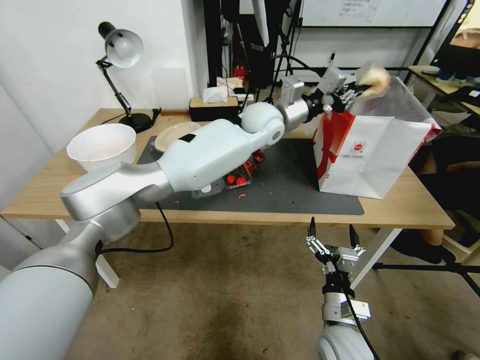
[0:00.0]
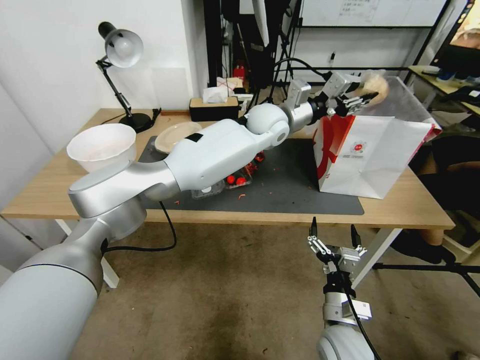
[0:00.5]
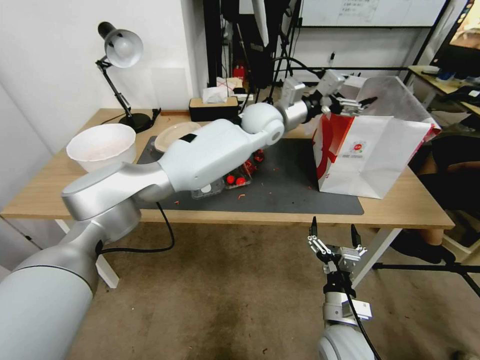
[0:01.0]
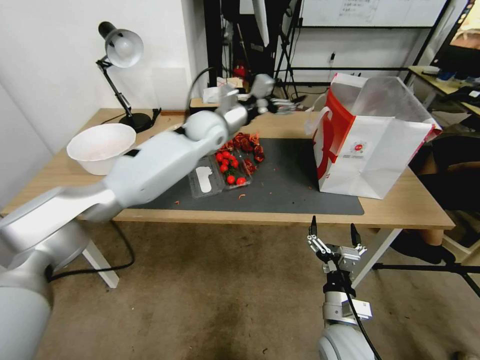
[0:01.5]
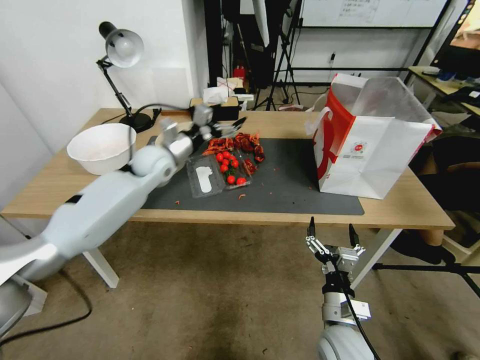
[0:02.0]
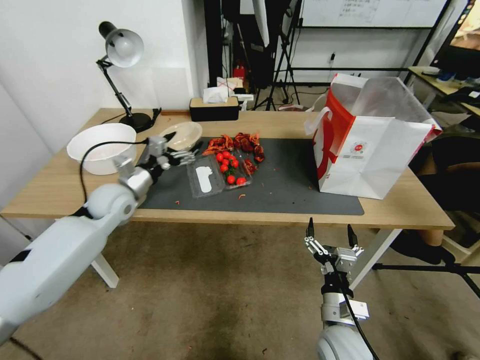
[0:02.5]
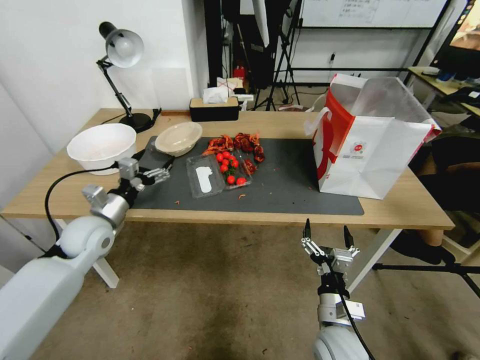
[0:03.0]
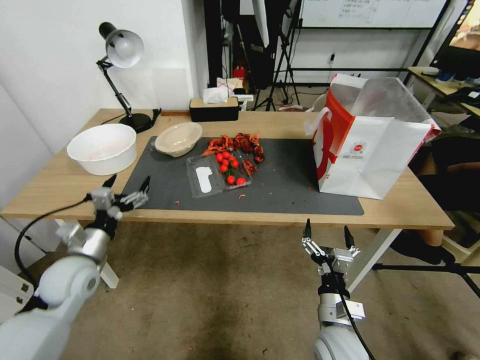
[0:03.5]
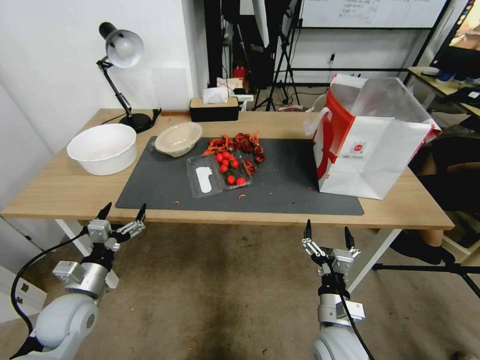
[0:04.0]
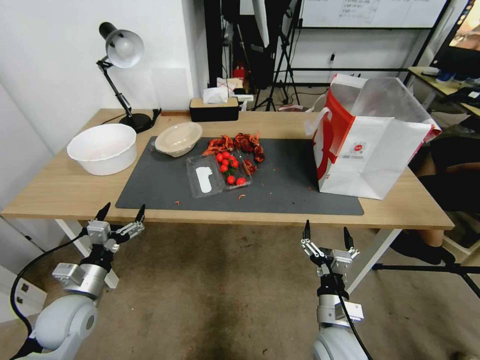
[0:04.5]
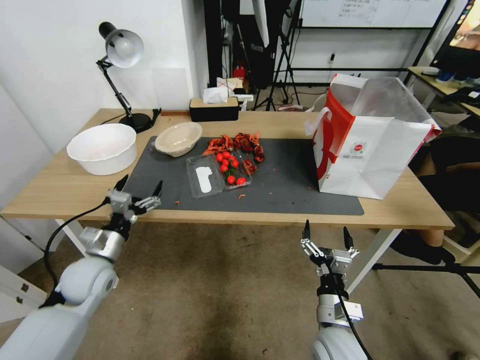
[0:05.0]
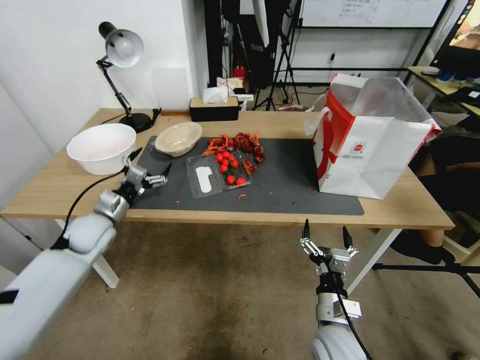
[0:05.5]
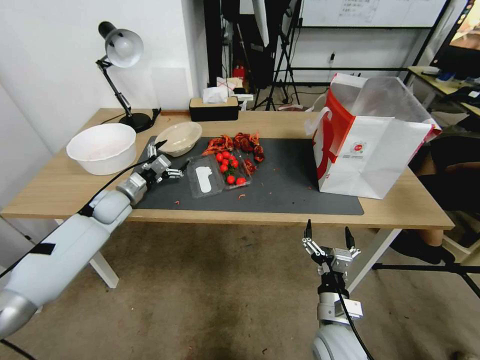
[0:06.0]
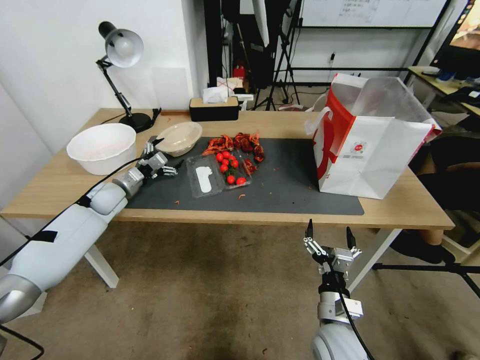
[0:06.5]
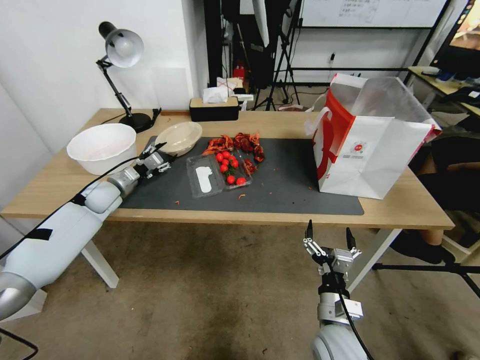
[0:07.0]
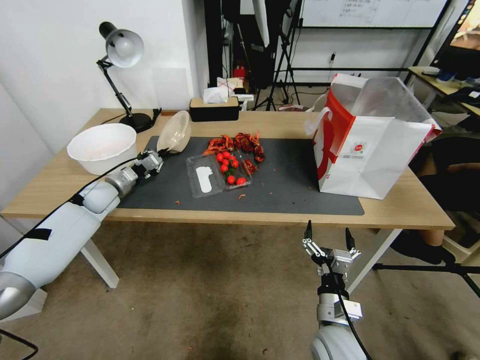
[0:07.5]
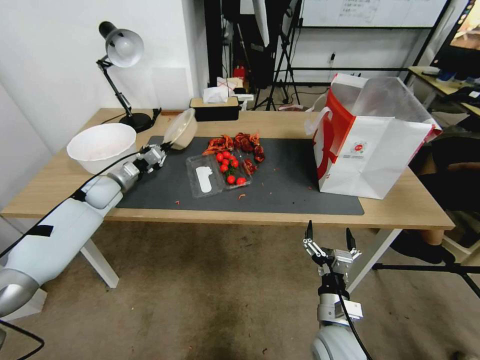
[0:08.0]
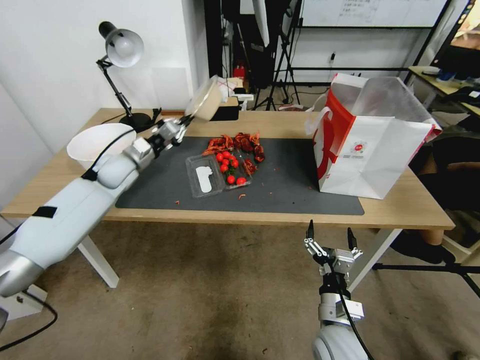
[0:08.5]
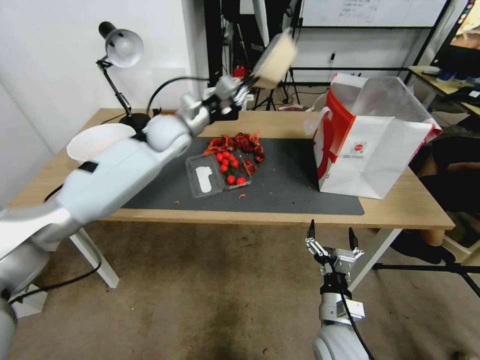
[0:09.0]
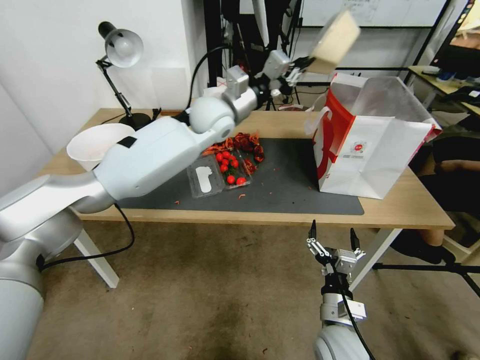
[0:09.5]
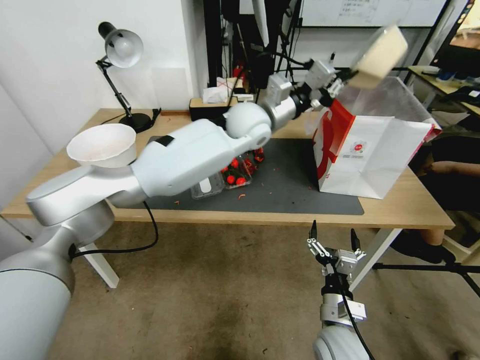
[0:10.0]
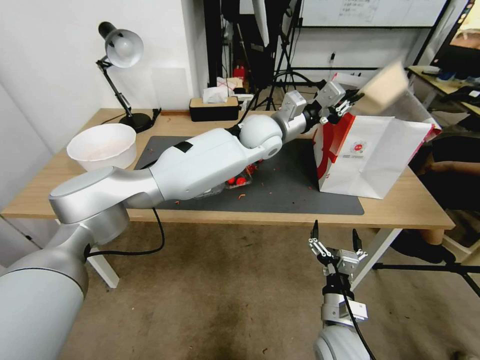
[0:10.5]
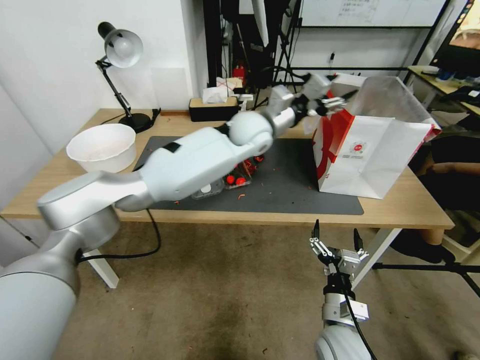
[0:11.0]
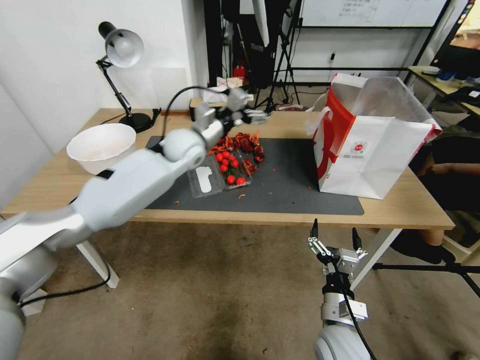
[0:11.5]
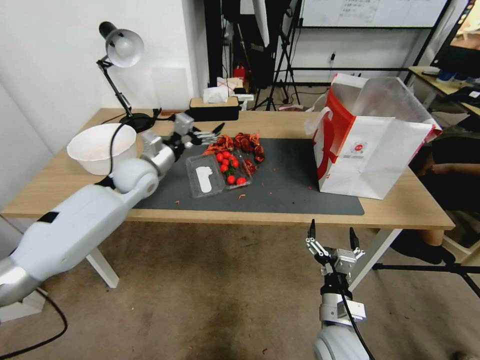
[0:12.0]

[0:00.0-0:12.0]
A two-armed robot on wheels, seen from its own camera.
0:00.0 to 0:02.0: The left gripper heads to the left, covering about 25 cm, and opens its fingers.
0:02.0 to 0:04.0: The left gripper goes some 35 cm backward, downward and to the left.
0:04.0 to 0:06.0: The left gripper heads forward, covering roughly 25 cm.
0:06.0 to 0:08.0: The left gripper changes place by about 5 cm, and closes.
0:08.0 to 0:10.0: The left gripper heads to the right and upward, covering some 50 cm.
0:10.0 to 0:12.0: The left gripper travels to the left and downward by some 30 cm, and opens its fingers.

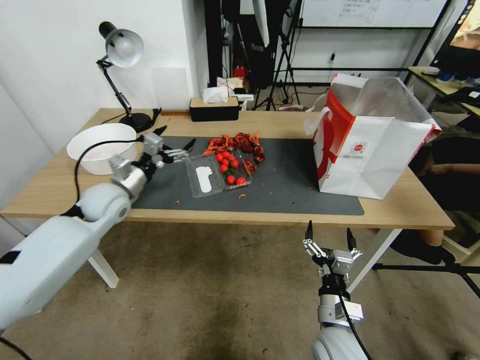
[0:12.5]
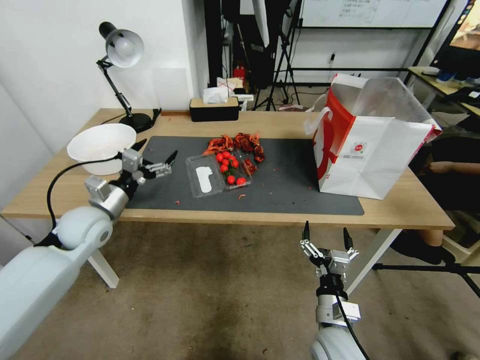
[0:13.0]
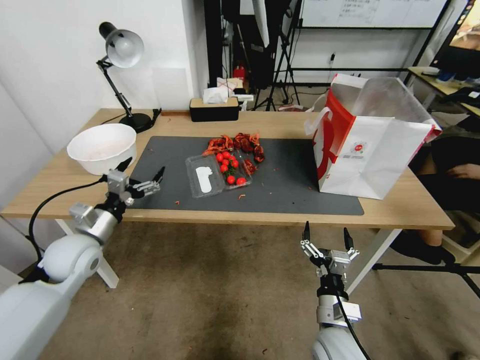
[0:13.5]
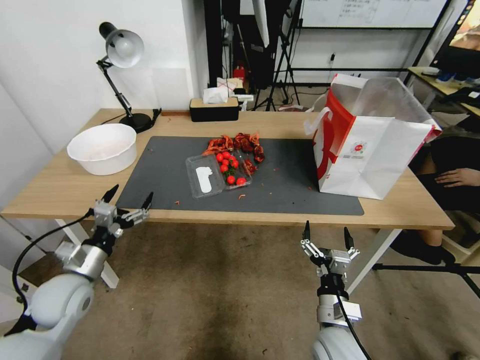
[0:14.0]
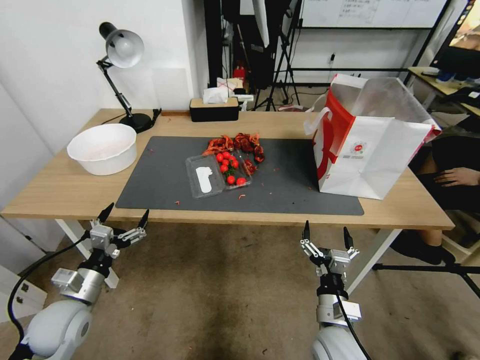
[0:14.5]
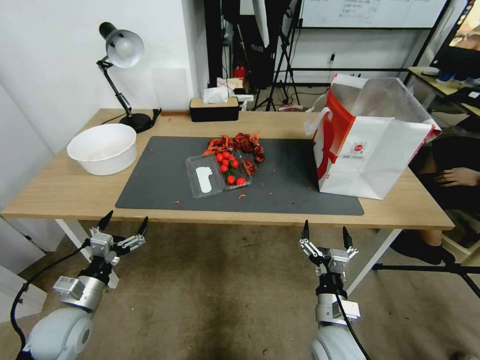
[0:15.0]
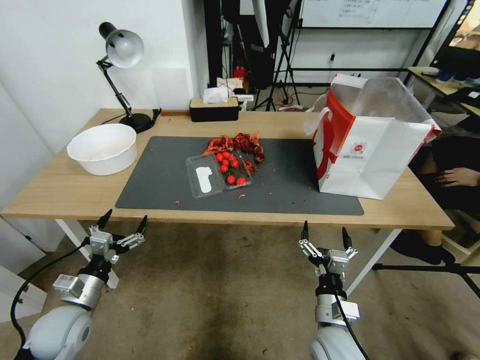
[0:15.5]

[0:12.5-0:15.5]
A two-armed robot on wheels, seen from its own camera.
0:12.5 to 0:14.0: The left gripper heads backward and downward, covering about 20 cm.
0:14.0 to 0:15.5: The left gripper shifts by roughly 5 cm.

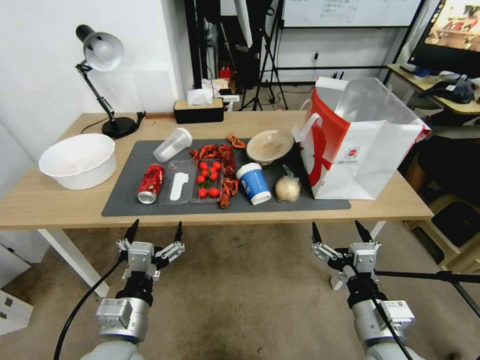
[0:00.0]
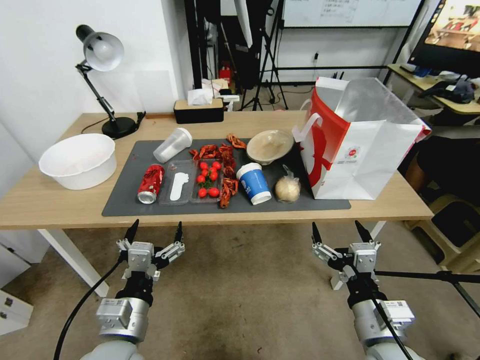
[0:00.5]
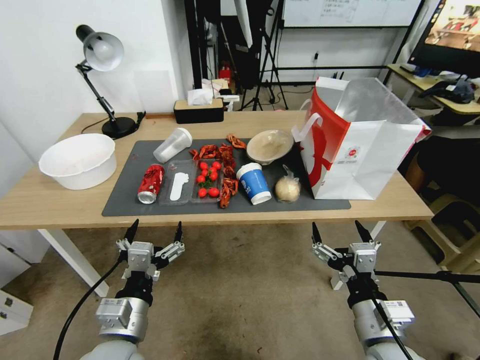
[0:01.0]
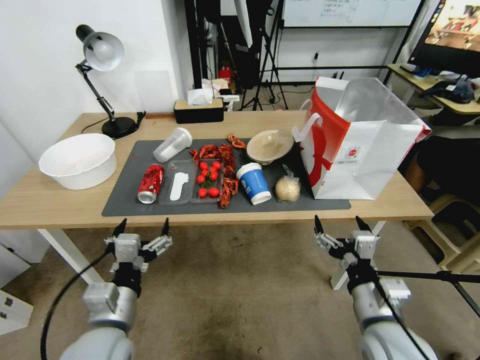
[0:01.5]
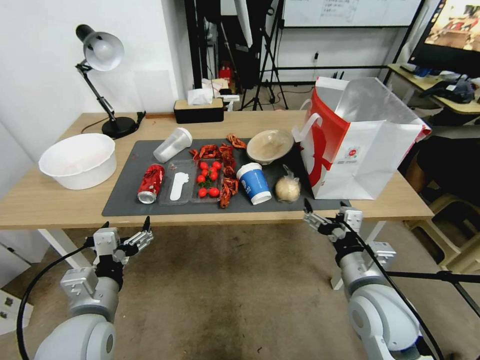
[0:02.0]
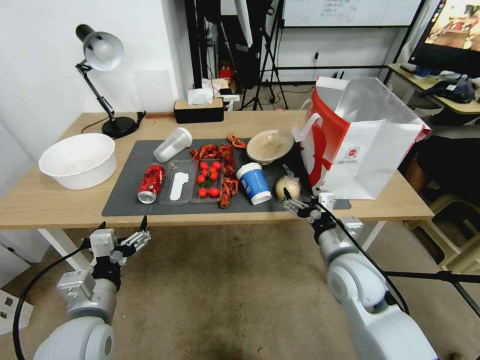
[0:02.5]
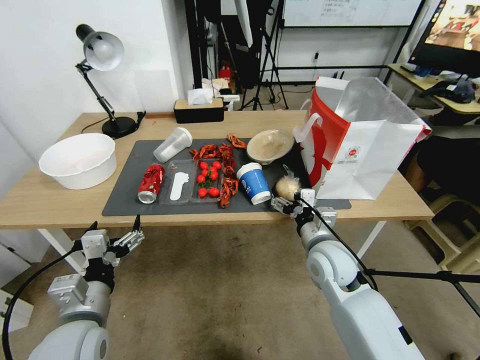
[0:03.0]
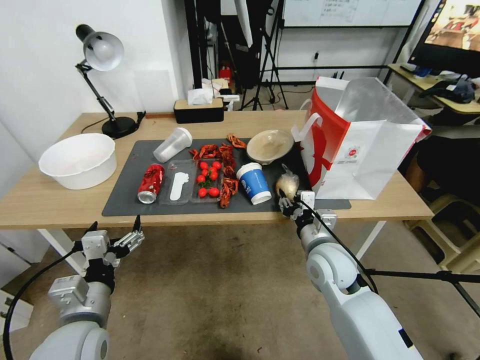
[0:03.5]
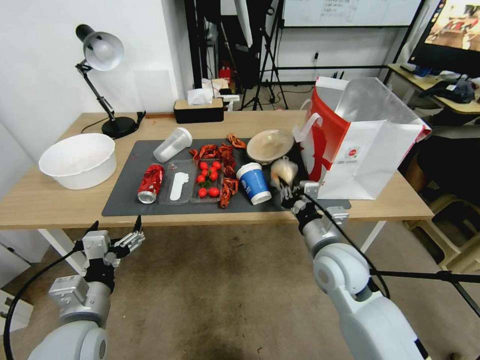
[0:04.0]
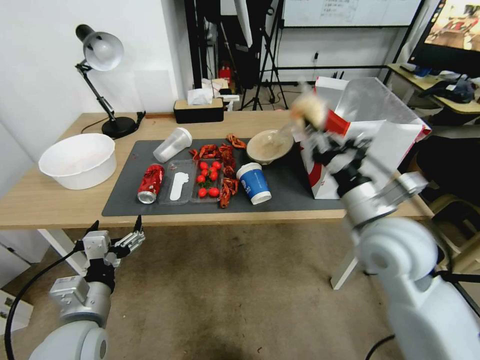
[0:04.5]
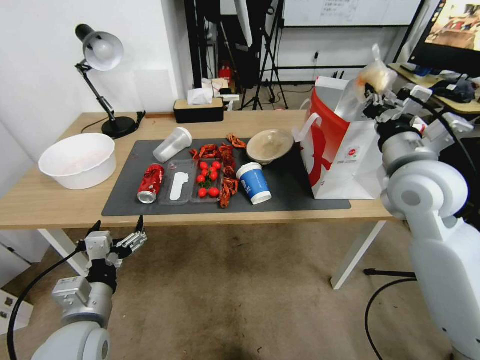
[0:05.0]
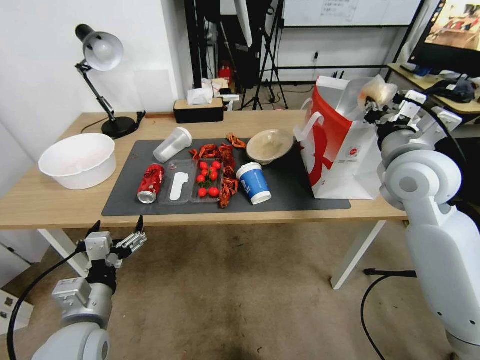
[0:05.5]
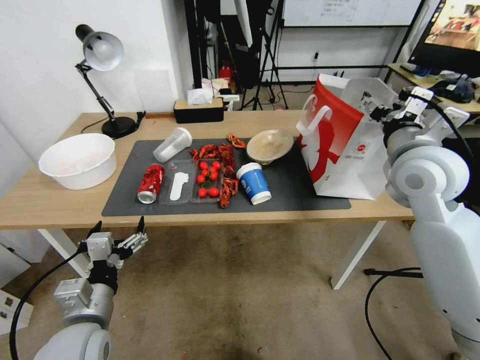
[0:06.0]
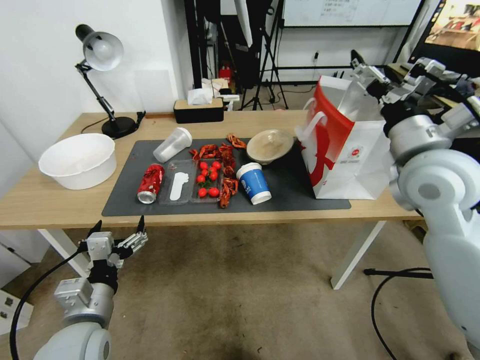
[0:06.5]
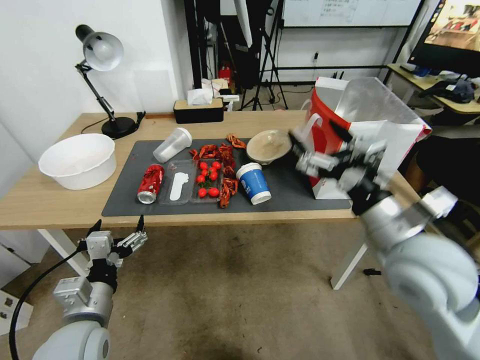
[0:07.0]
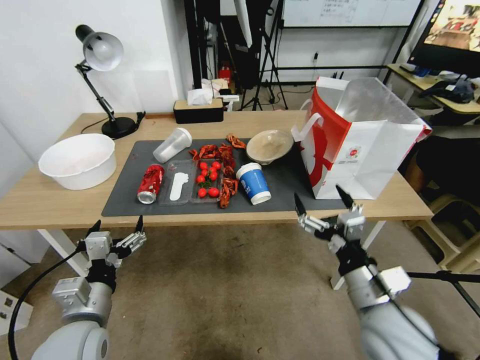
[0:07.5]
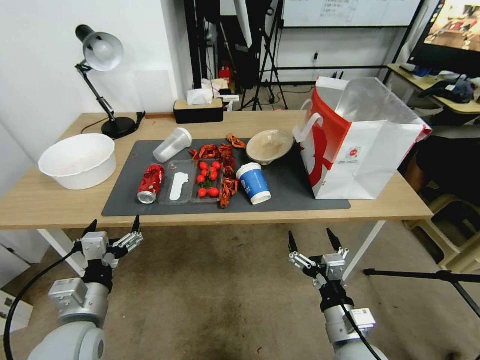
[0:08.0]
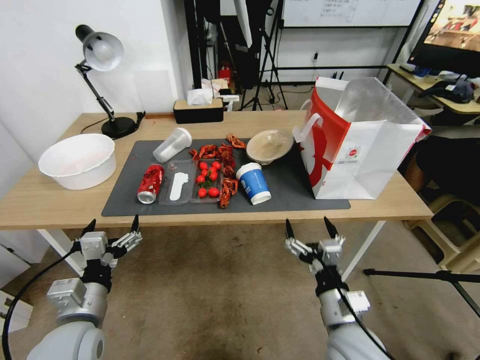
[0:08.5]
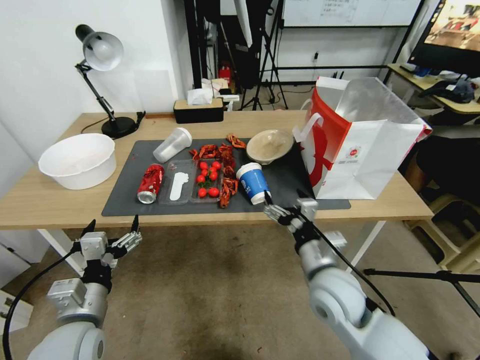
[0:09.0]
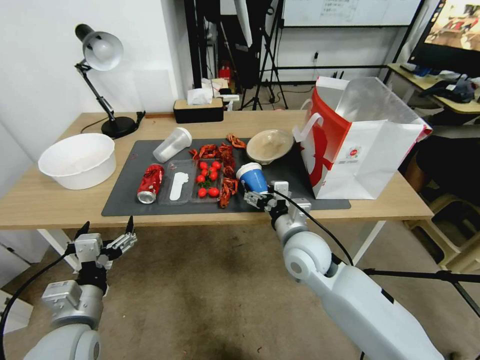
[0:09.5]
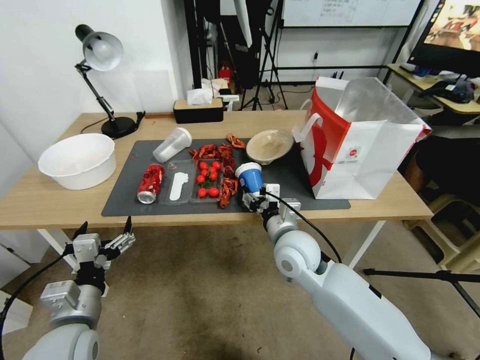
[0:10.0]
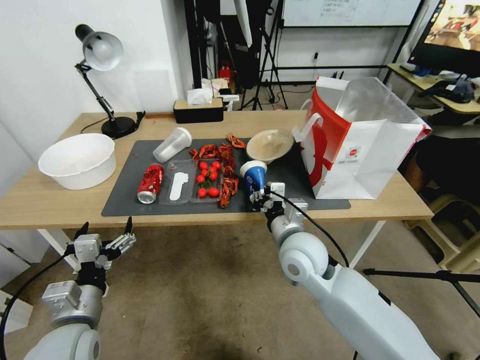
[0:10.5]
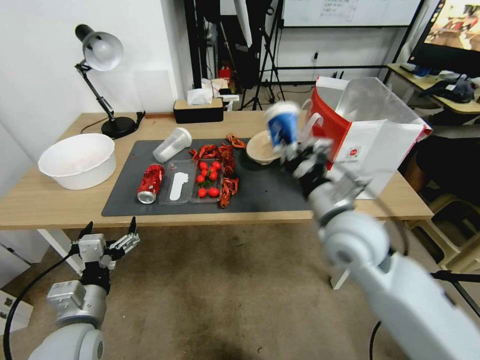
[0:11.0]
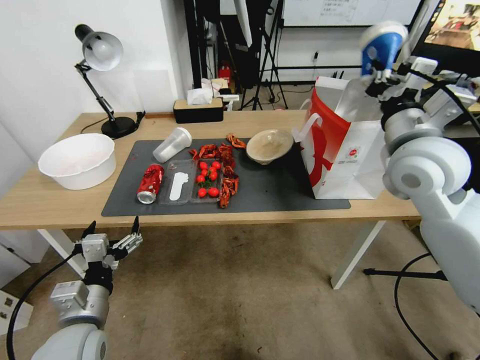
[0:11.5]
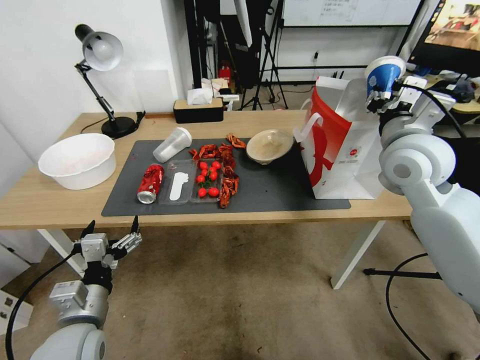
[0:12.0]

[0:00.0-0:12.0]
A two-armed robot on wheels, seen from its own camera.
0:02.0 to 0:04.0: The right gripper is displaced forward by approximately 10 cm, and closes.
0:04.0 to 0:06.0: The right gripper shifts roughly 20 cm upward and to the right, and opens its fingers.
0:06.0 to 0:08.0: The right gripper heads downward and backward, covering about 35 cm.
0:08.0 to 0:10.0: The right gripper shifts roughly 20 cm forward and to the left, and closes up.
0:10.0 to 0:12.0: The right gripper is displaced upward and to the right by approximately 25 cm.
